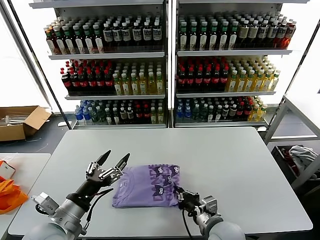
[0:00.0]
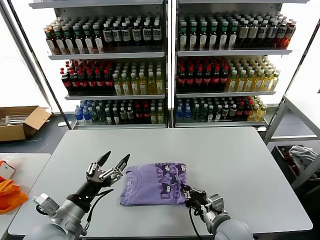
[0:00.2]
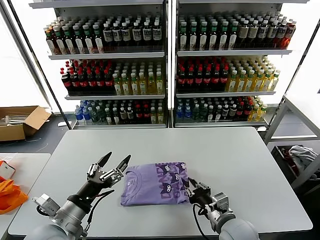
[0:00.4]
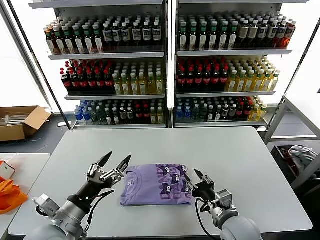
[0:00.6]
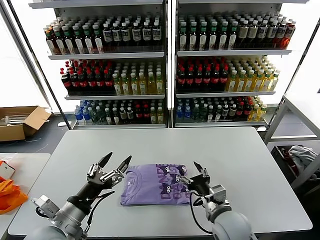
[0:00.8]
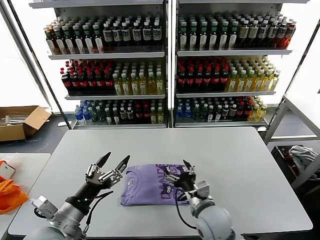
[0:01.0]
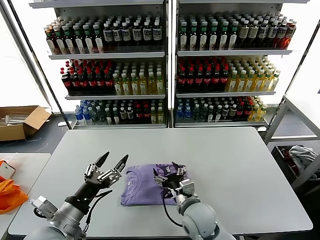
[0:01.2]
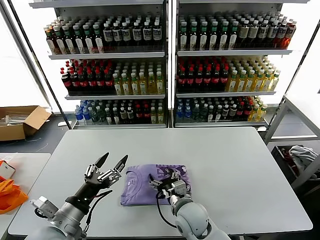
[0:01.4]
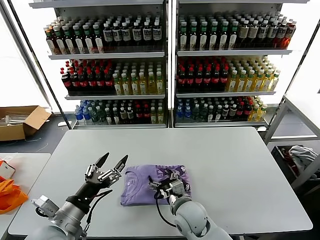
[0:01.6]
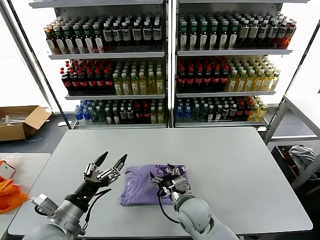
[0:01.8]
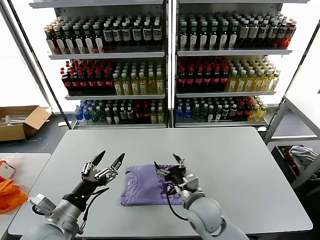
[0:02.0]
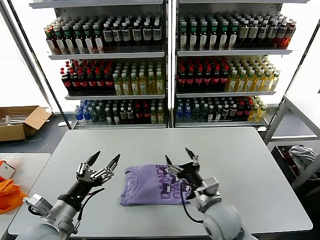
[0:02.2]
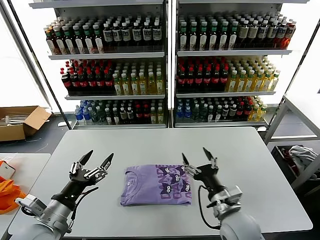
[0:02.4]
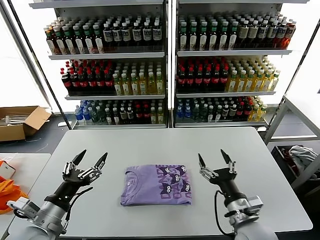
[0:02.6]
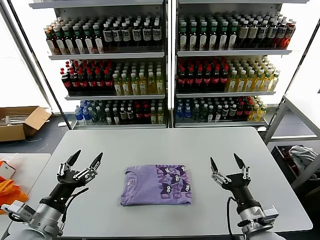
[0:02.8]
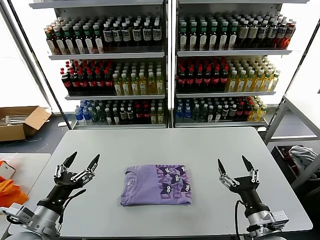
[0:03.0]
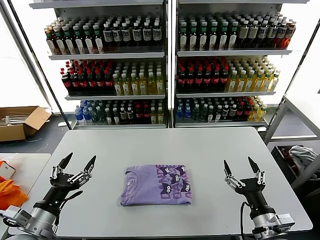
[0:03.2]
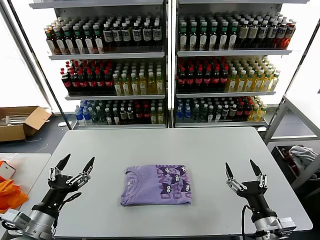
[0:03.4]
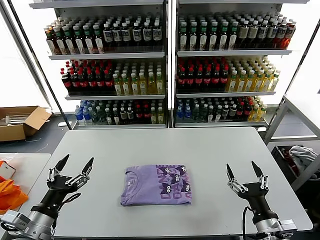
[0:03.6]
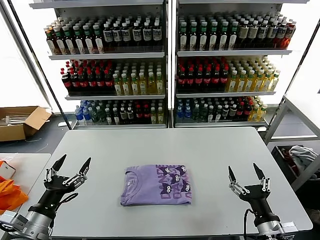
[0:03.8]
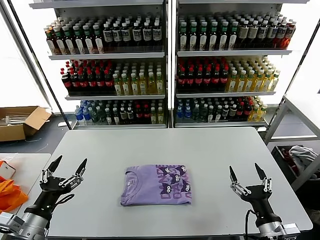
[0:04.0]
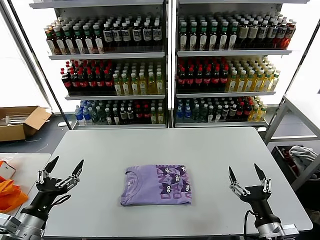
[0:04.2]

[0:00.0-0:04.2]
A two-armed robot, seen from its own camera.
Task of the whole recording: fold and organize the clothes.
0:00.0 to 0:01.4: The right gripper moves to the left and forward, roughly 10 cm, and opens.
0:01.4 to 0:02.8: The right gripper shifts approximately 20 cm to the right and backward.
0:02.8 to 0:04.2: The right gripper changes place by roughly 5 cm.
